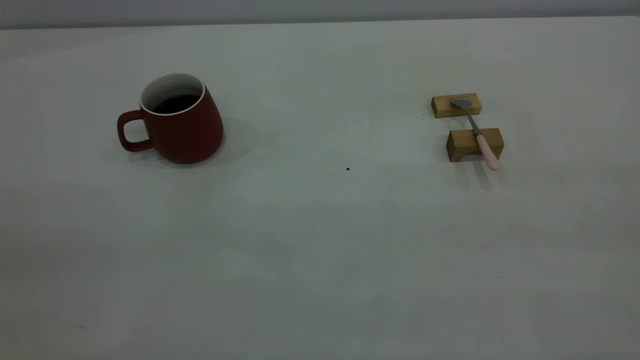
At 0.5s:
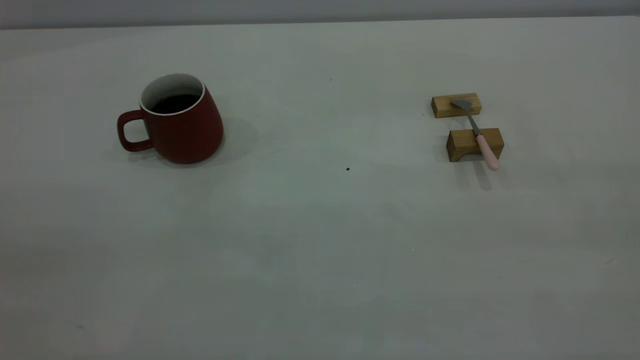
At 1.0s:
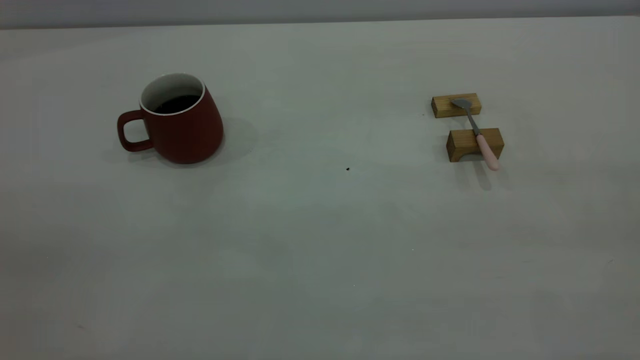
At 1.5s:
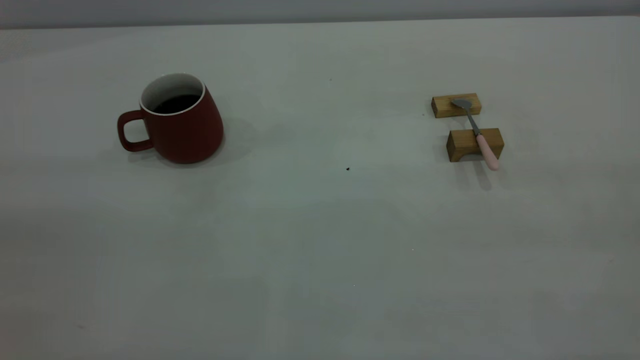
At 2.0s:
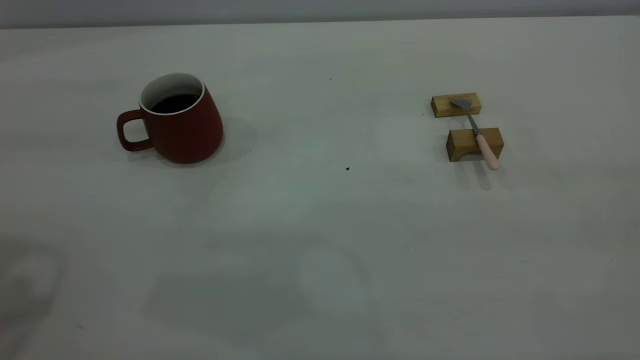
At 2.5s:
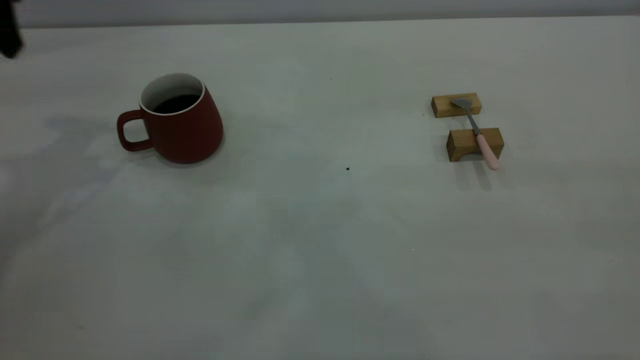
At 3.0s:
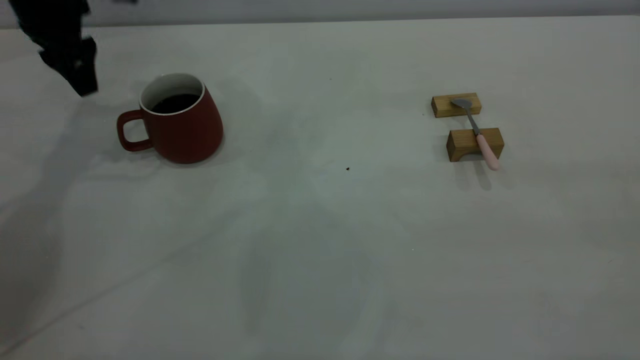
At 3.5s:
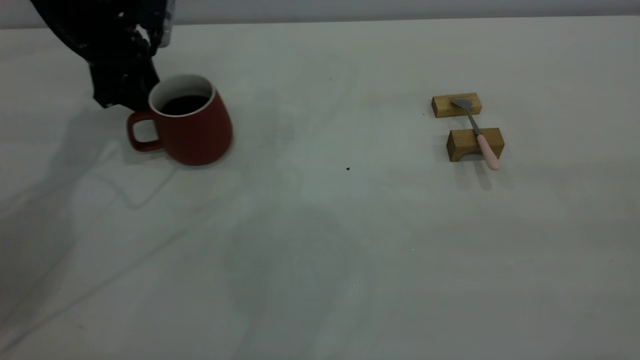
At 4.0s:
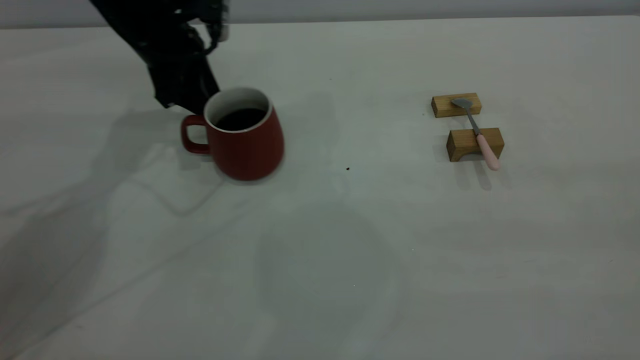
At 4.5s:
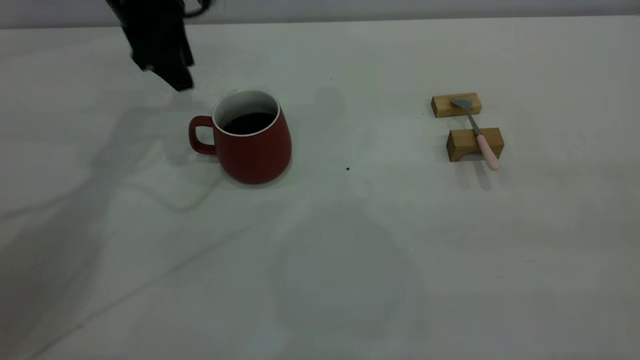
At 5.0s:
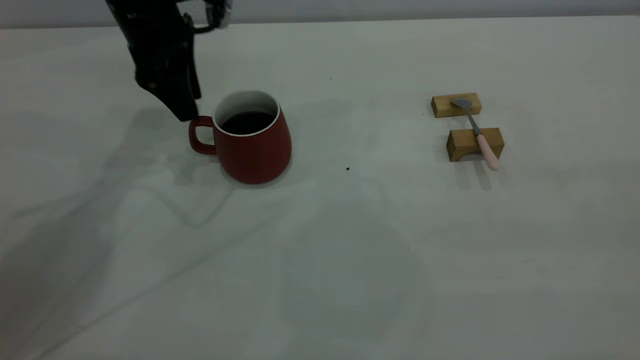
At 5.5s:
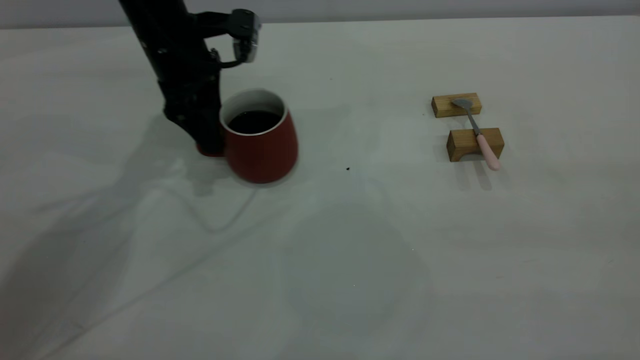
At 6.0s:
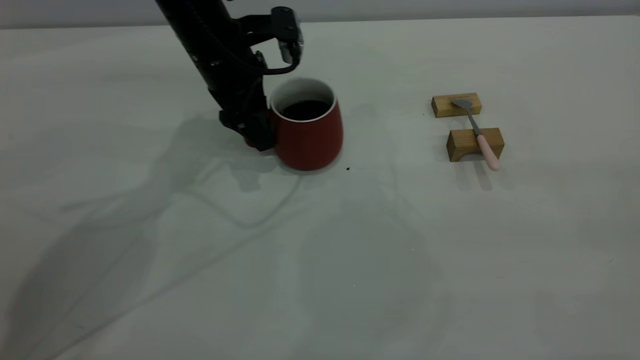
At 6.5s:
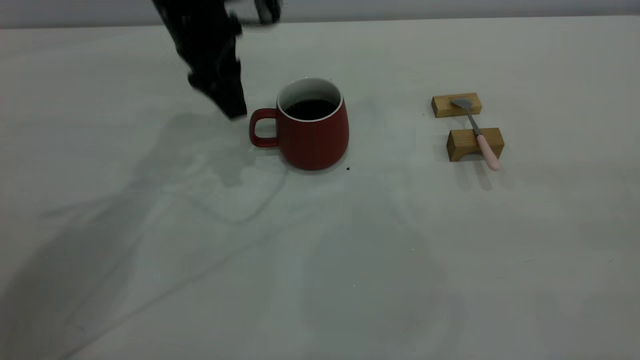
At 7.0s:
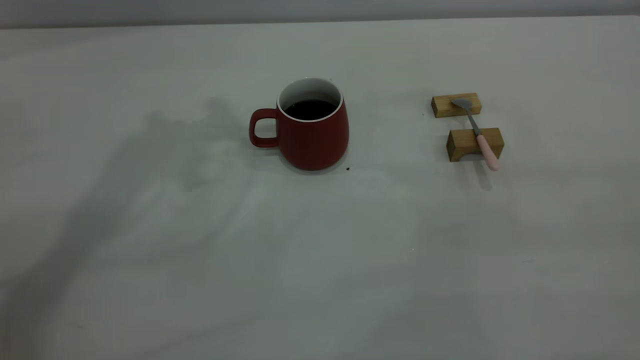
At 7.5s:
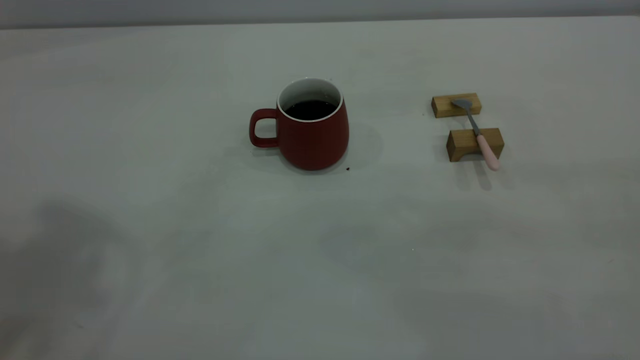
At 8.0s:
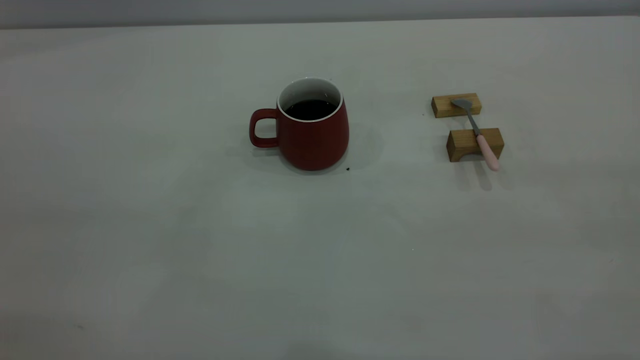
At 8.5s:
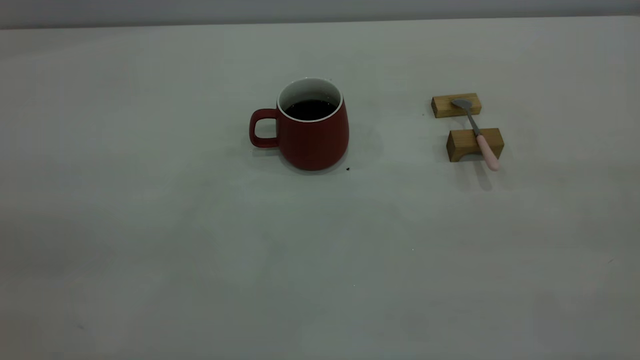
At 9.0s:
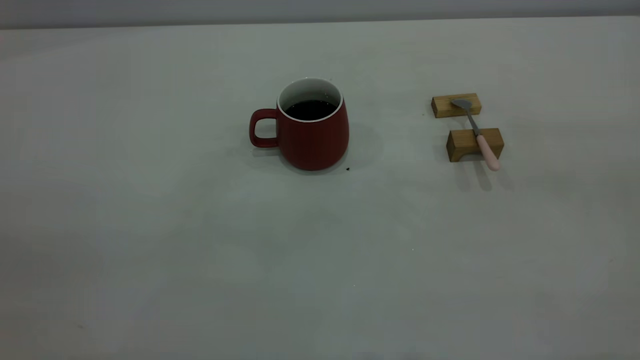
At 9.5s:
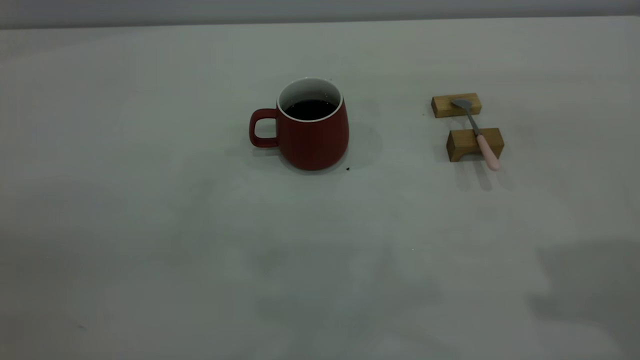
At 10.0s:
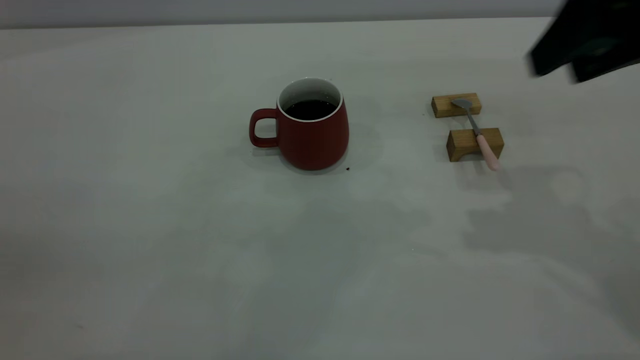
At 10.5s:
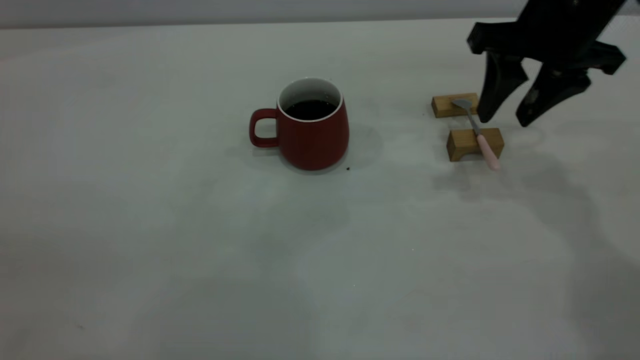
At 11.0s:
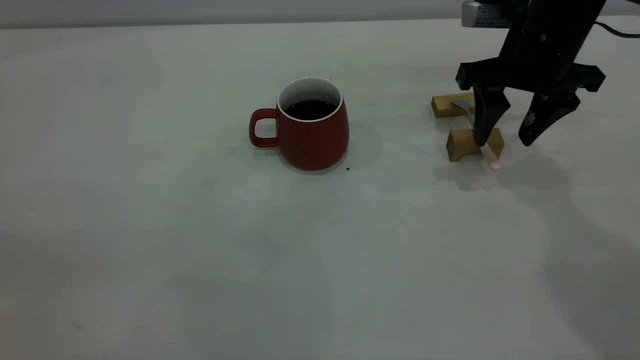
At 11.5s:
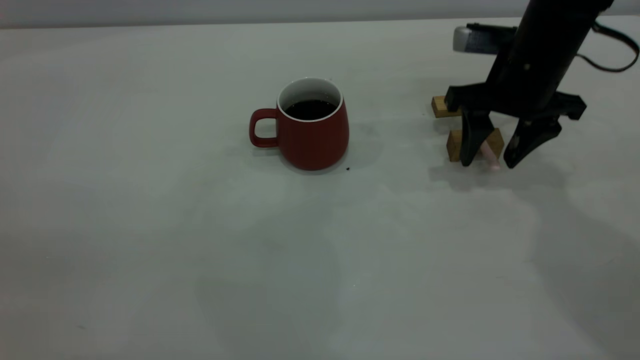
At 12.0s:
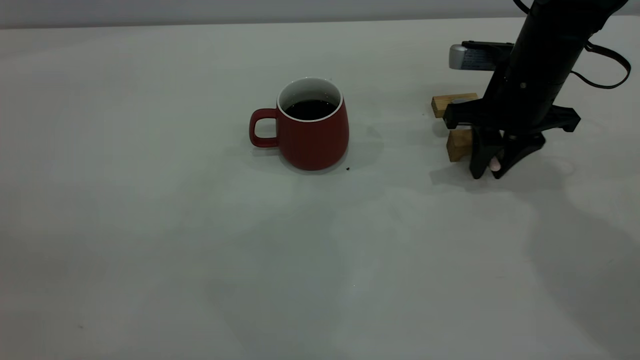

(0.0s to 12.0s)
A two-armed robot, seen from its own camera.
Step, 0.0s - 6.5s: Move the cup with coffee to the center of view.
2.0s - 4.0s: The left gripper heads forward, downward and to the right, covering roughly 35 cm.
4.0s - 6.0s: The left gripper shifts some 10 cm to the right.
6.0s - 8.0s: The left gripper heads backward, upward and to the left, covering some 50 cm.
8.0s - 10.0s: The right gripper shifts about 30 cm forward, and opens.
10.0s - 12.0s: The right gripper is displaced downward and forward by some 20 cm, and closes.

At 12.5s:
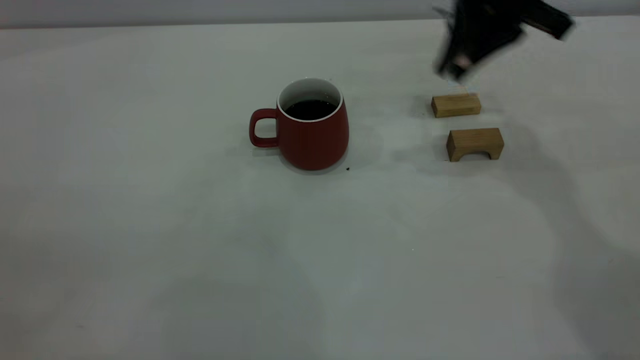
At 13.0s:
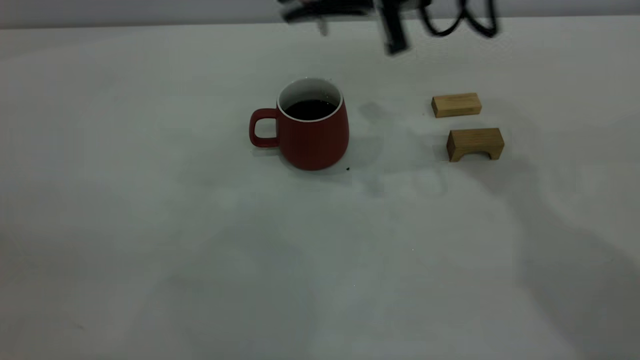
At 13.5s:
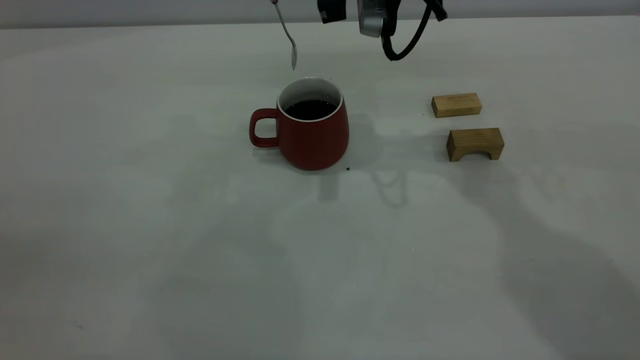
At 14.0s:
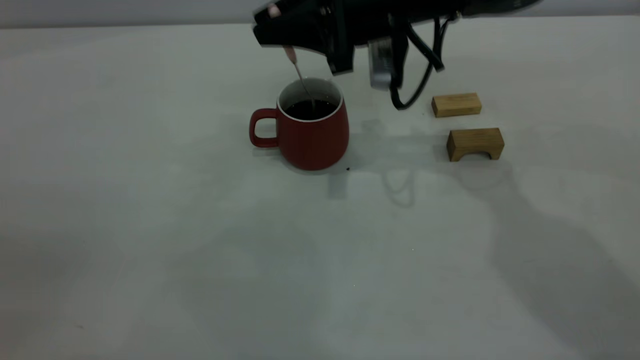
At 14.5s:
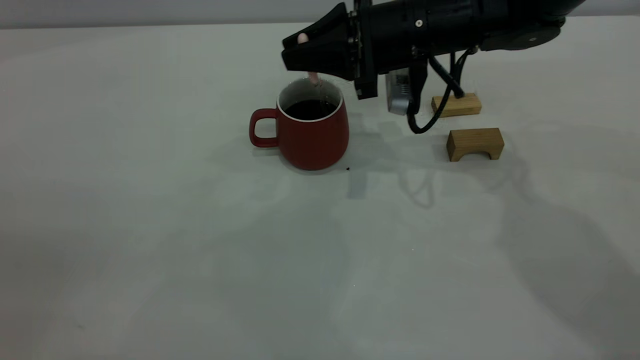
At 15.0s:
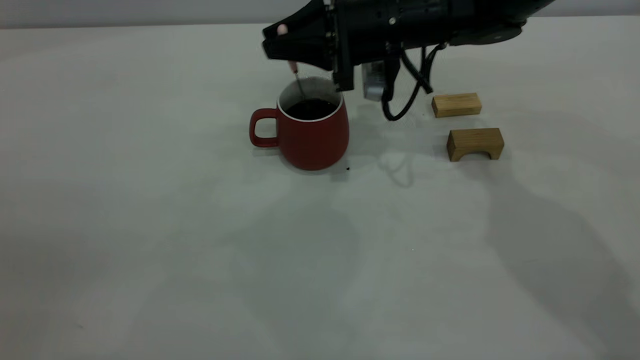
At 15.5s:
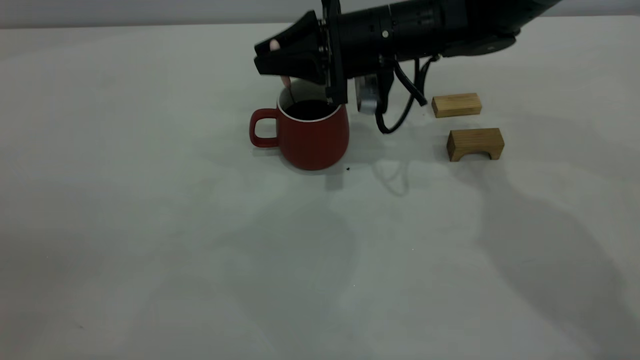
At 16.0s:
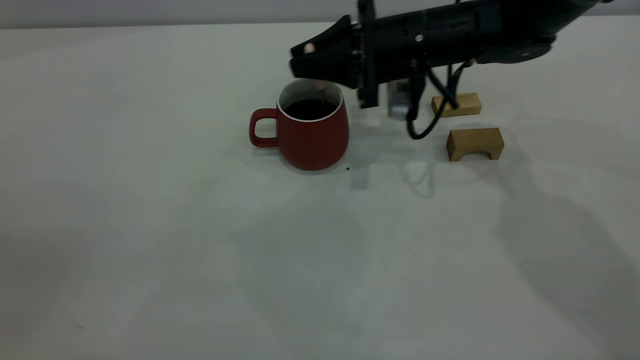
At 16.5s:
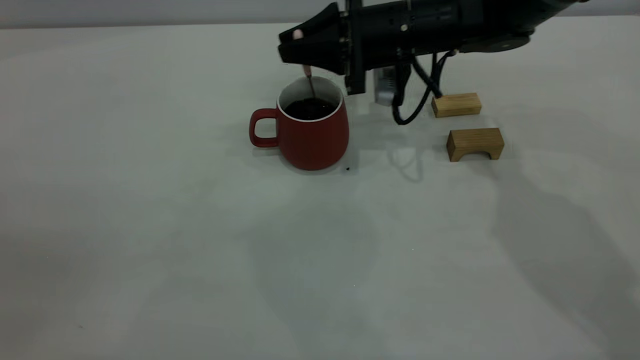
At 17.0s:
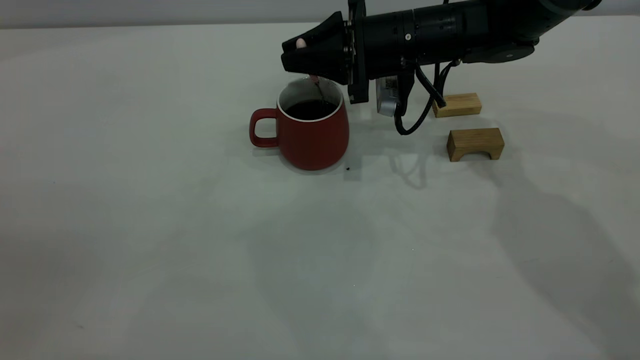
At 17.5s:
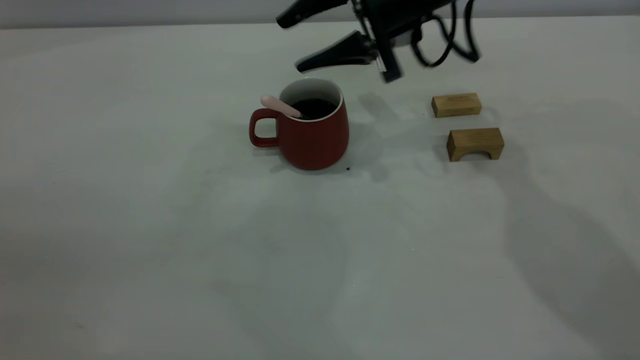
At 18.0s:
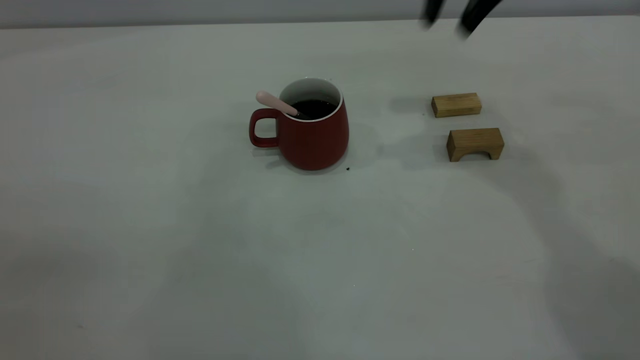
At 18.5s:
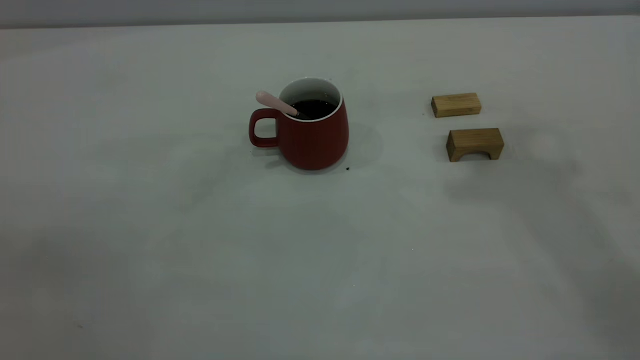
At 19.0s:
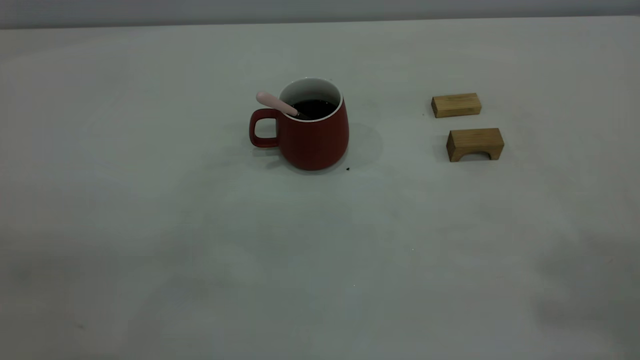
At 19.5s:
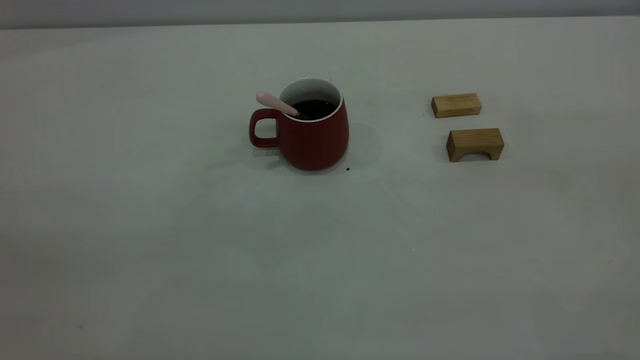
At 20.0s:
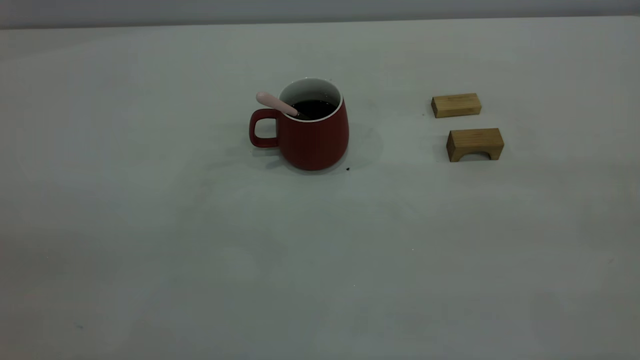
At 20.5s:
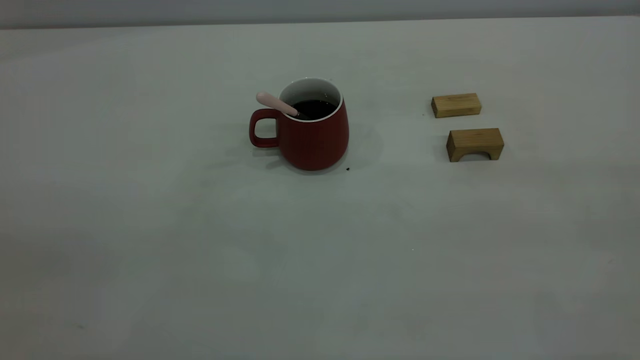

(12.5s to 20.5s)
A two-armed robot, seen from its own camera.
Step, 12.5s - 17.5s: Stir the coffee in the cup.
12.5s - 14.5s: The right gripper shifts approximately 10 cm downward and to the left.
14.5s - 16.5s: The grippers stay close to where they were, moving slightly.
16.5s - 18.5s: The right gripper is displaced upward by roughly 40 cm, and opens, then closes once more.
